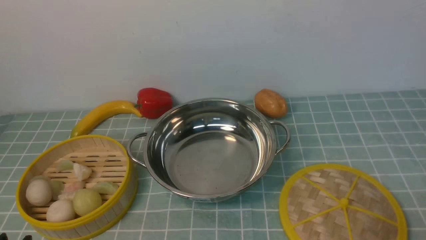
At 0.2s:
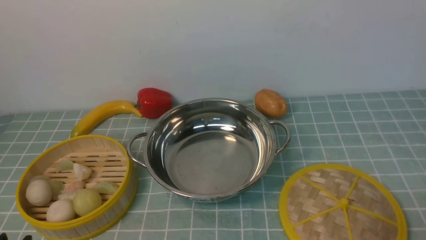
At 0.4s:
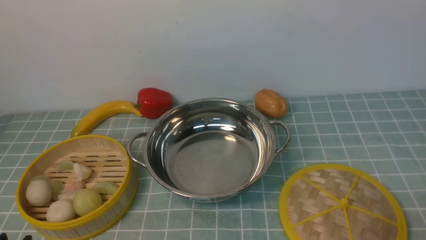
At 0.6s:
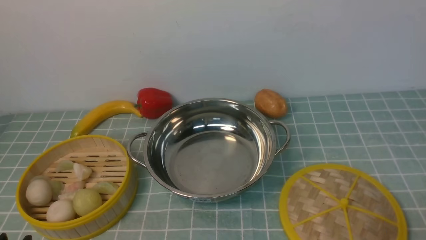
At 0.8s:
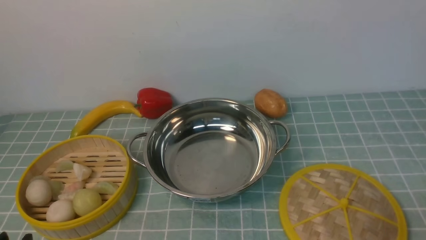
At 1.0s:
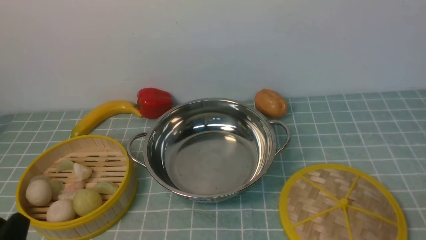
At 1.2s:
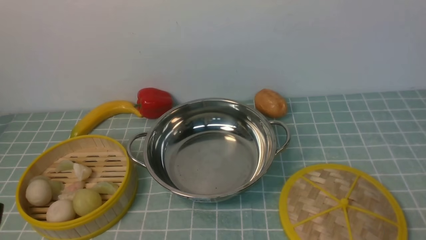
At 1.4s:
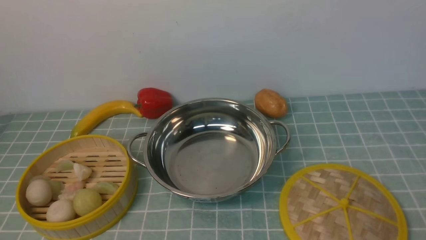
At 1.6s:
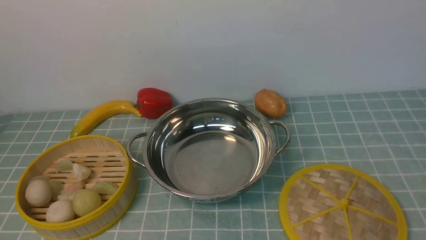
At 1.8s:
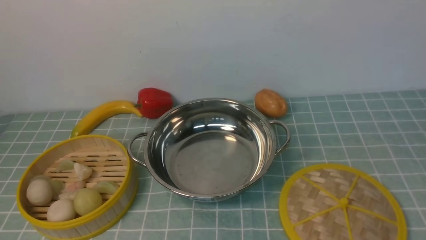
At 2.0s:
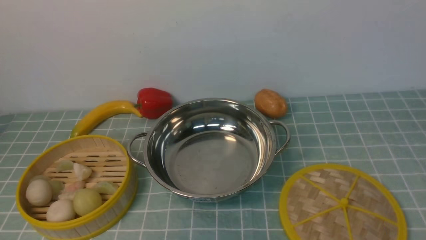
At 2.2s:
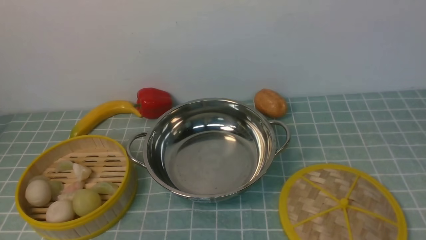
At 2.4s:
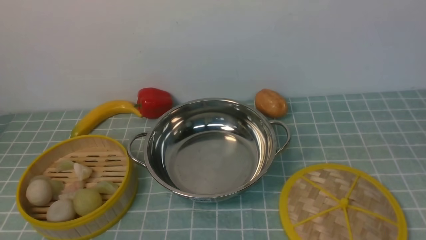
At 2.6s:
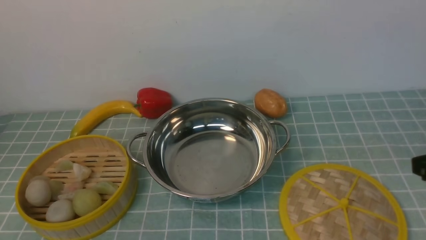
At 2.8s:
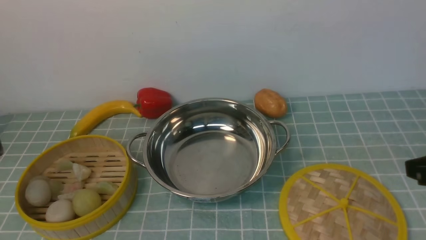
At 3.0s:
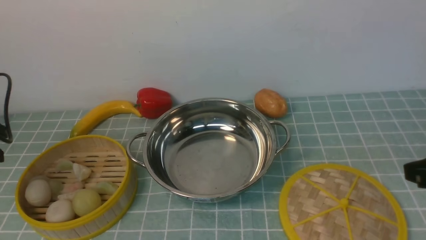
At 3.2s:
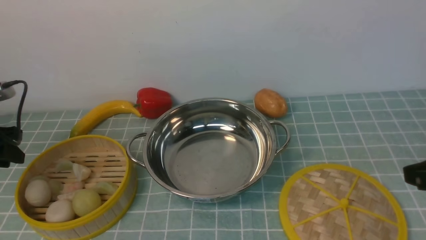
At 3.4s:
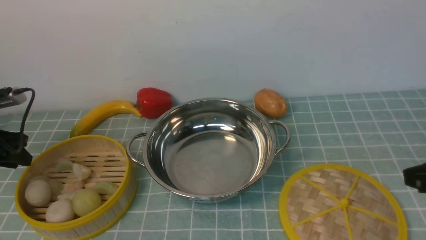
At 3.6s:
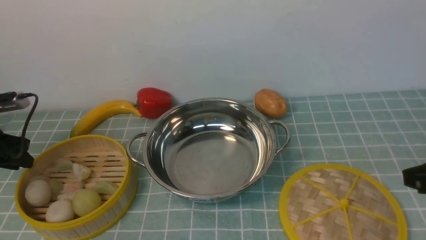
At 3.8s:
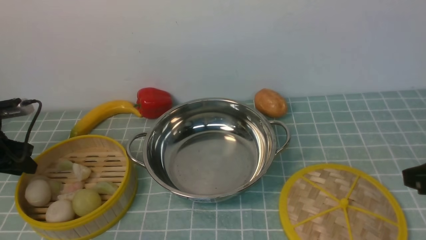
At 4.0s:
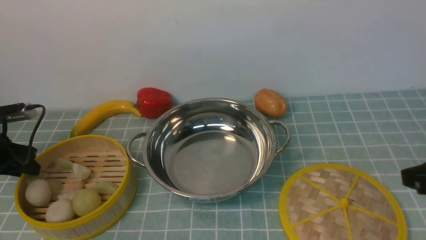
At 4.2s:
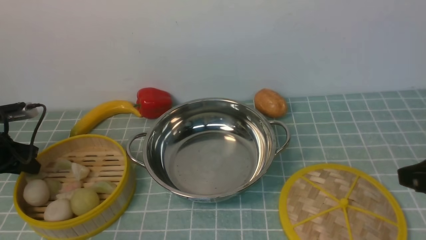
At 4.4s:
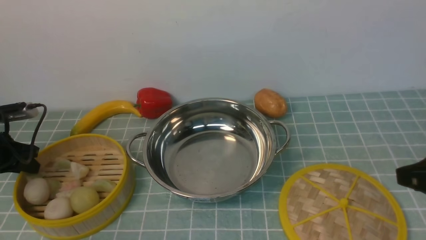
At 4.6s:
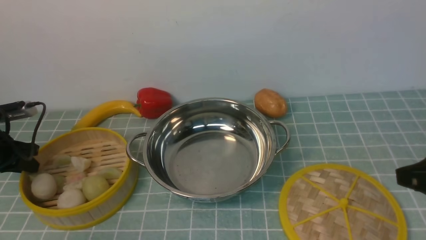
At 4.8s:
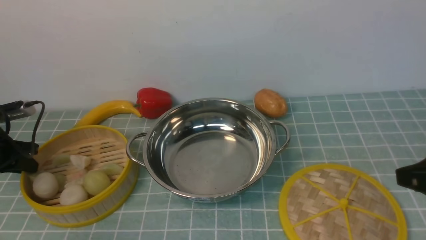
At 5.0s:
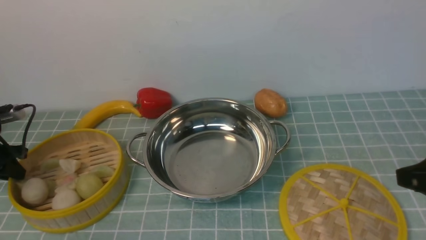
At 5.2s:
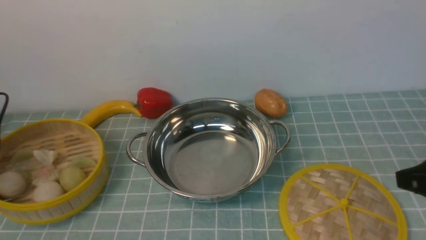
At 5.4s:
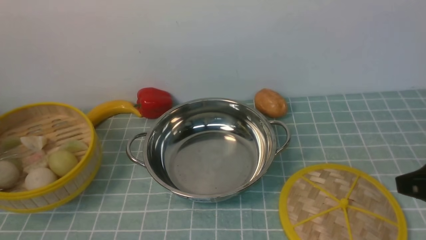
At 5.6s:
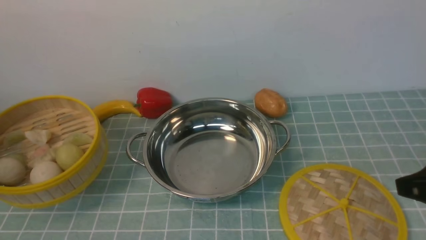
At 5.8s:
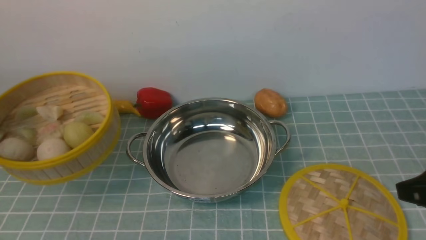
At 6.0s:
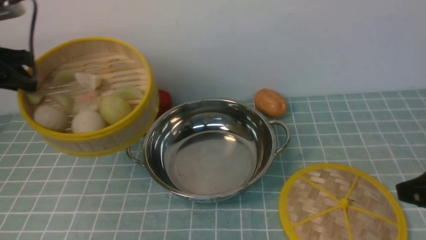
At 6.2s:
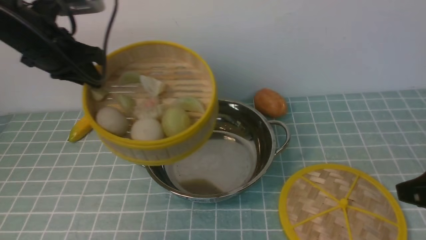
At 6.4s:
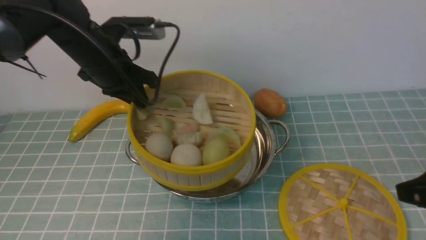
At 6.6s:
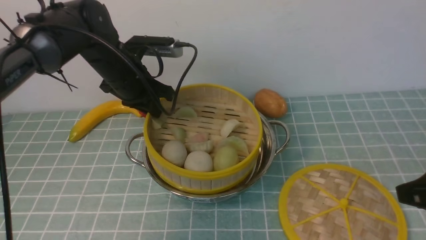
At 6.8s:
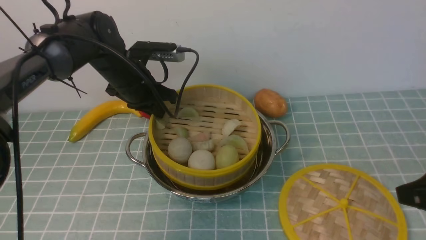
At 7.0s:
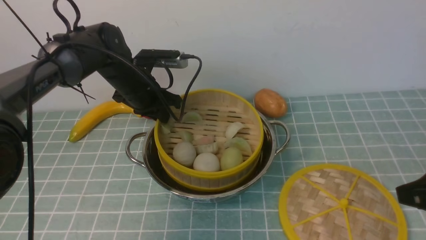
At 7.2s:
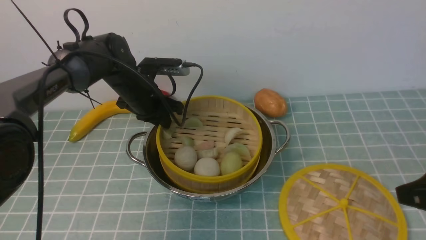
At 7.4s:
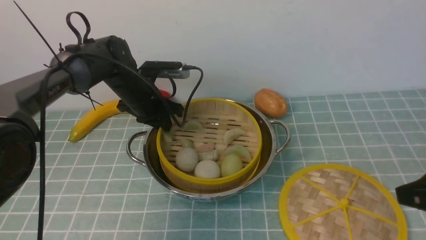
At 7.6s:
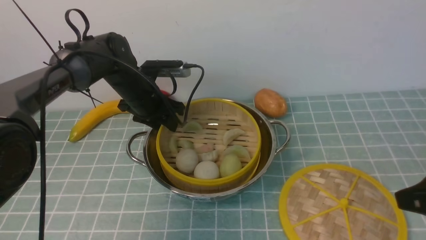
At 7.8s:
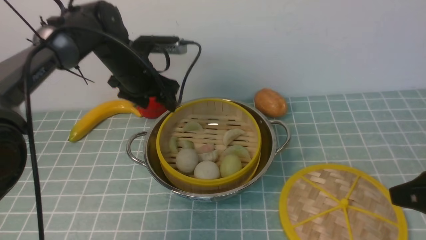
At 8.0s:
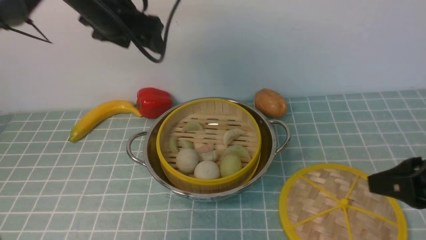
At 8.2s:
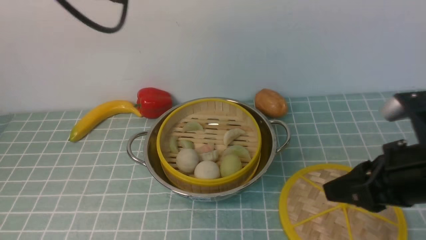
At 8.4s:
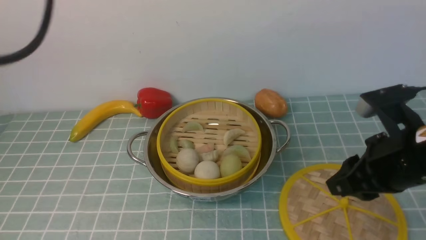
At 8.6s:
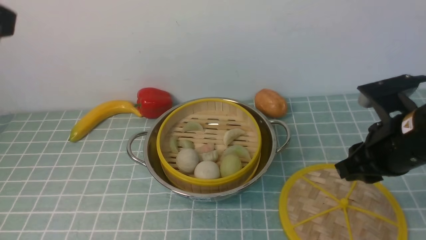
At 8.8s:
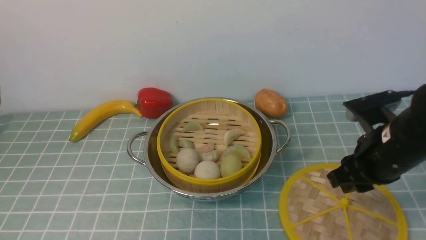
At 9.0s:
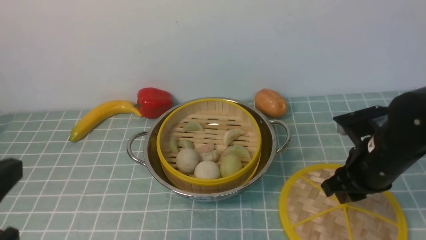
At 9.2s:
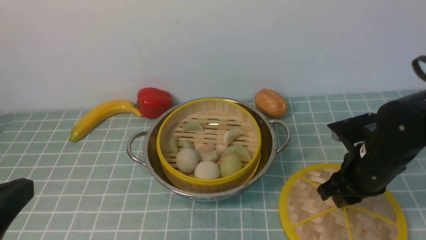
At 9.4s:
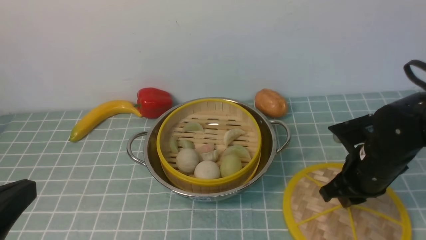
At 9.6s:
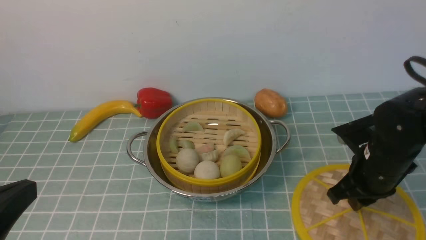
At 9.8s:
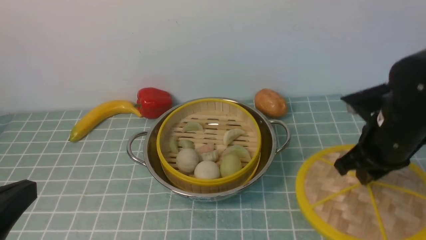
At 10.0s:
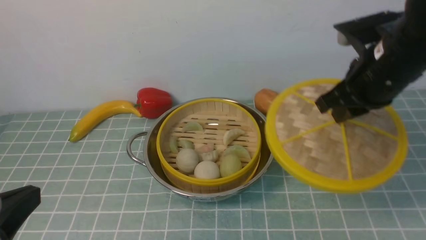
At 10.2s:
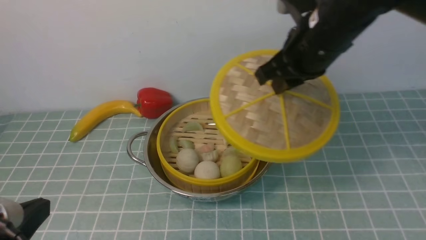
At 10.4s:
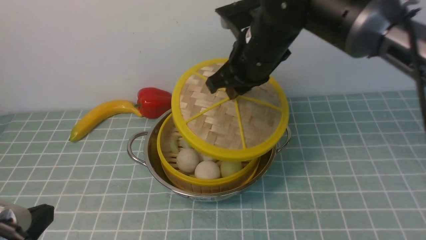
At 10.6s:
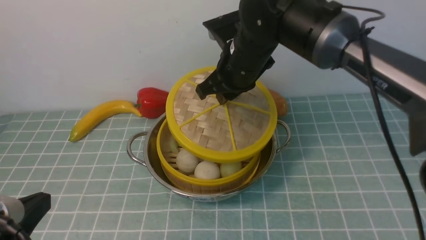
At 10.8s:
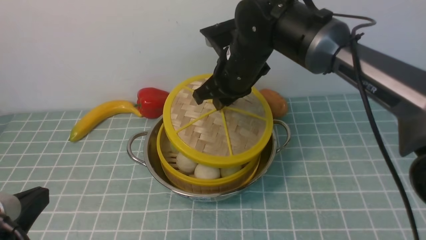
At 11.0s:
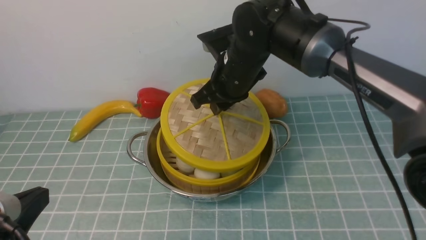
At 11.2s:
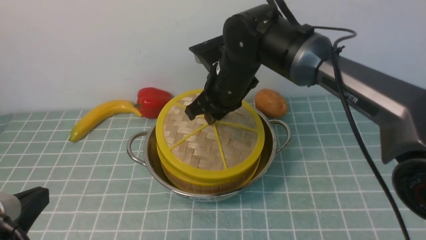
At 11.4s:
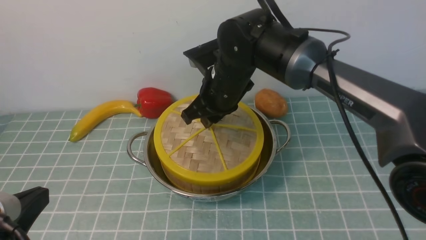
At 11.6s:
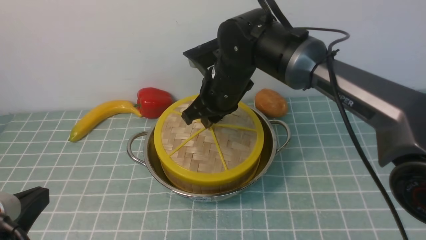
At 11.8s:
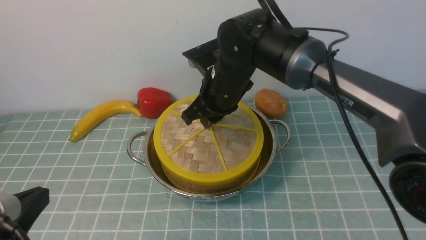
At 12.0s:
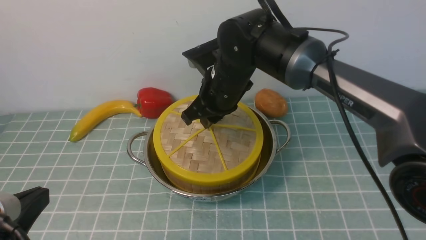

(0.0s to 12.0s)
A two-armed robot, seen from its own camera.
Task of the whole recording: place the steamer in the pot on the blue tablecloth, and put the lid on the steamer.
Step, 0.0s - 5.4s: use the left arm to lift the steamer closest to it.
Step, 5.6s - 8.0s: use the left arm to put the steamer into the iron steamer pot in the middle.
Step, 8.2s - 10.0s: use the right arm to lift the lid of the steamer.
1.6s - 3.0s: The left gripper heads forward and to the left, covering some 30 cm.
3.0s - 4.4s: The left gripper heads downward and forward, covering approximately 10 cm.
4.4s - 6.0s: The left gripper is displaced upward and to the right by roughly 20 cm.
6.0s - 7.6s: The left gripper is displaced to the right, downward and forward by some 20 cm, and opens.
7.6s - 9.0s: The left gripper travels backward by roughly 35 cm, and closes, while the right gripper shifts roughly 15 cm forward, downward and to the left.
9.0s - 10.4s: The left gripper shifts about 5 cm downward; the right gripper is displaced to the left, upward and forward by some 20 cm.
10.4s - 12.0s: The right gripper goes about 10 cm downward and to the left.

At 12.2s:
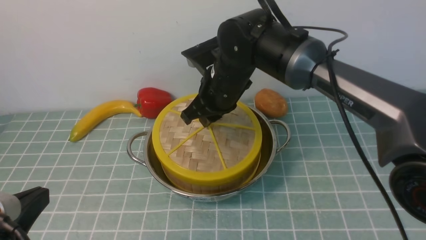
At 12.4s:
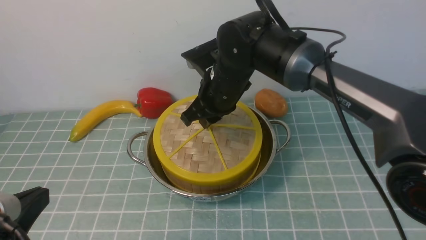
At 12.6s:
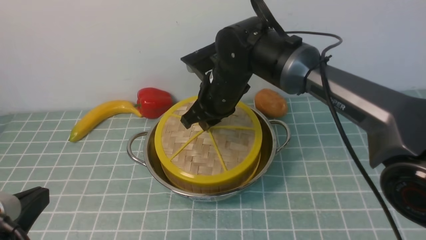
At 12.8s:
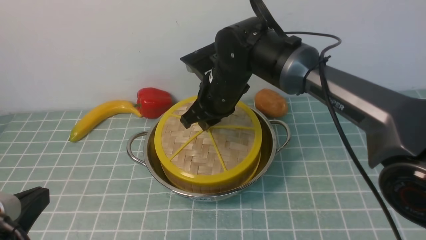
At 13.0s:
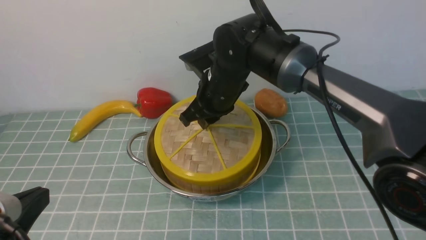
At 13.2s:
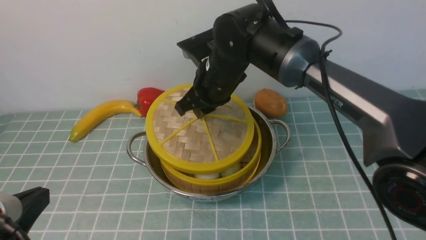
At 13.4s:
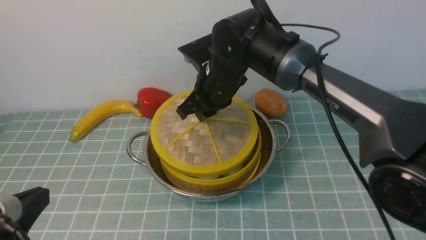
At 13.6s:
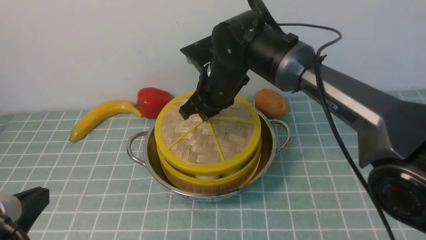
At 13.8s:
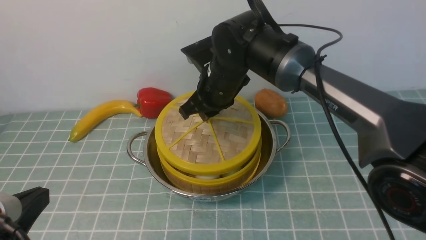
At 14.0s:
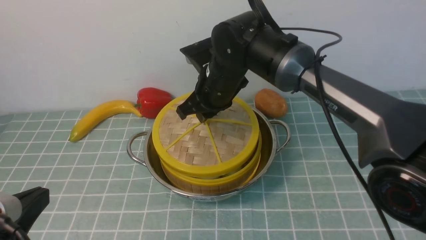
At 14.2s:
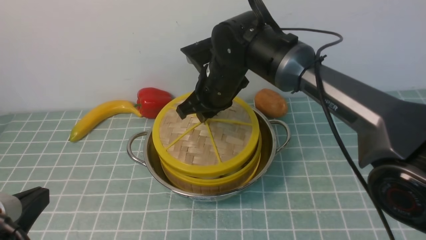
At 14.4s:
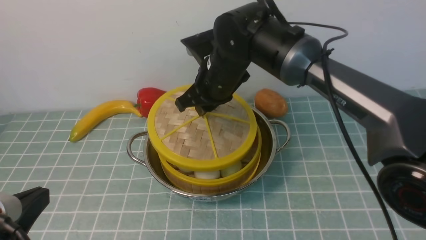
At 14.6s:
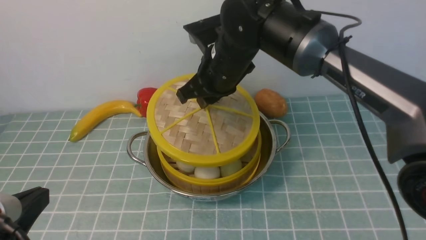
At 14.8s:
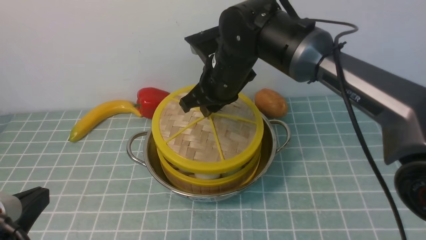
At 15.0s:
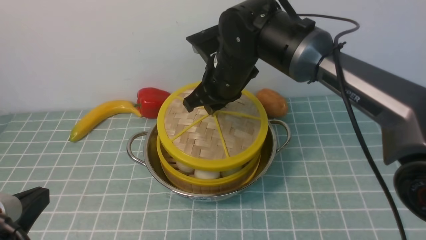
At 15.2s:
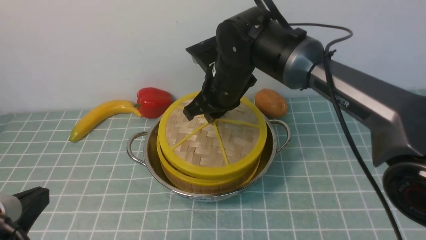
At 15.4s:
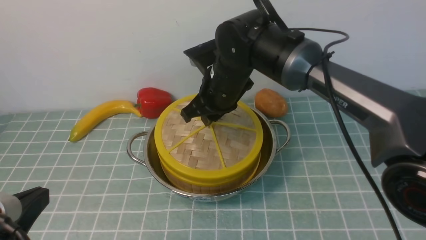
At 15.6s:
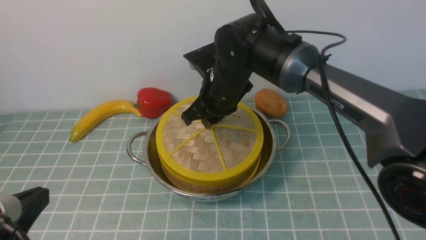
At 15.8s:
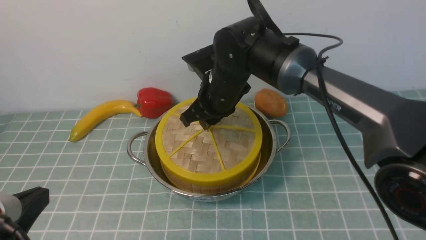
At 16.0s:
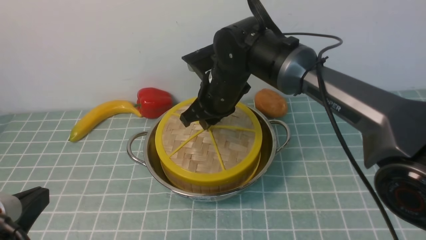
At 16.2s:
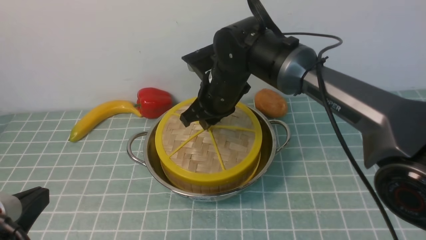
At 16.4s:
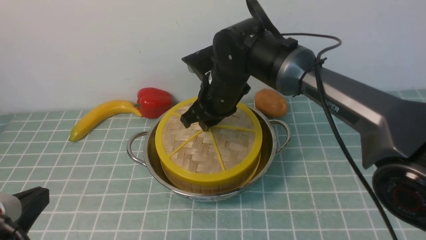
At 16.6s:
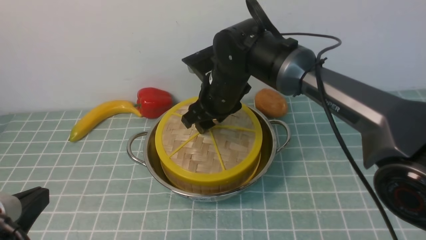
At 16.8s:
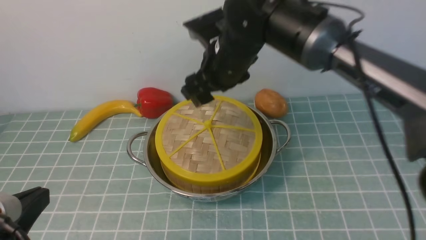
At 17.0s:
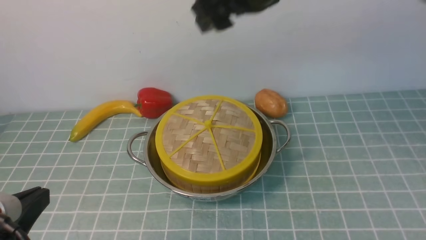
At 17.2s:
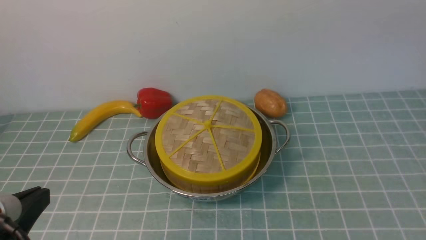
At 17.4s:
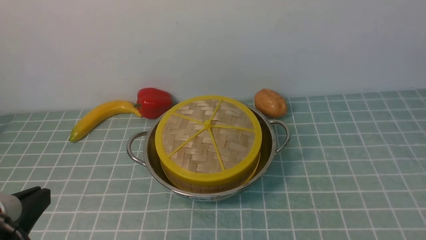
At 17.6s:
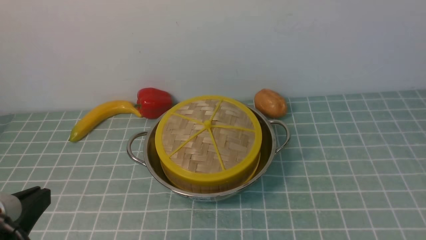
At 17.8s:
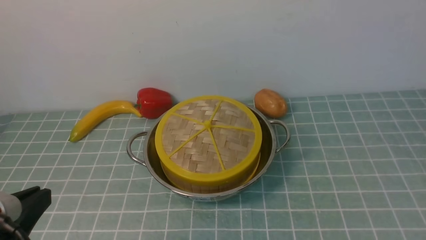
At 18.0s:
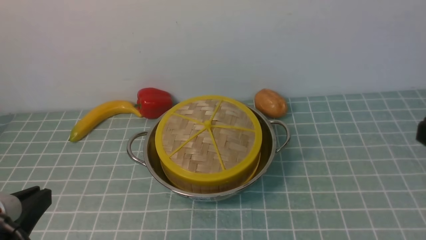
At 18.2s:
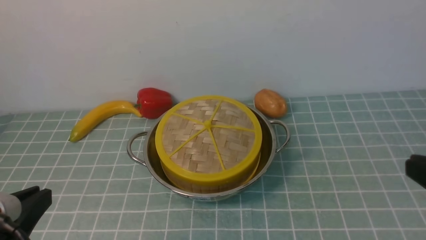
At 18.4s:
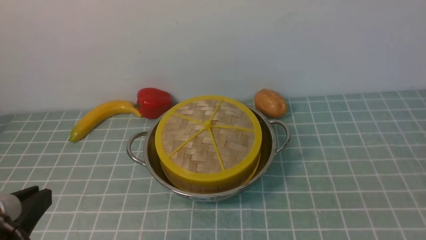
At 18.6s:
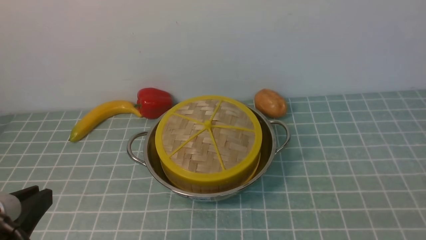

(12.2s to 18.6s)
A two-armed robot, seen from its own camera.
Task of the whole recording: place the steamer in the pot on the blue tablecloth, and put the lid on the steamer.
Step, 12.2s - 17.2s: use the right arm to place the steamer lid on the steamer.
12.2s - 15.4s: The grippers move only a little.
15.4s - 17.0s: The right gripper goes approximately 25 cm upward and backward, and opens its fingers.
17.0s - 18.6s: The right gripper shifts some 40 cm downward, backward and to the right, and closes.
